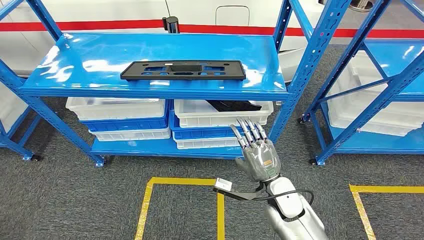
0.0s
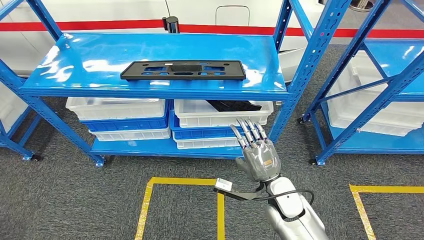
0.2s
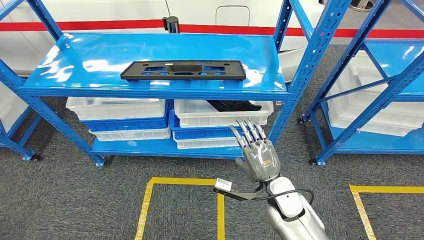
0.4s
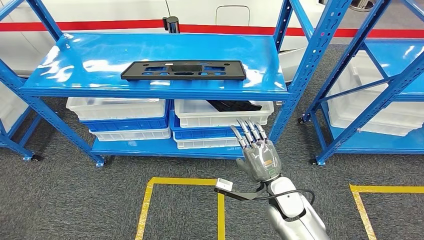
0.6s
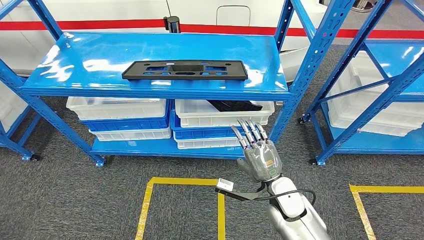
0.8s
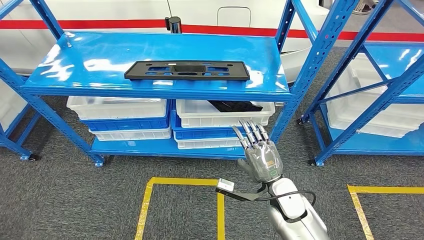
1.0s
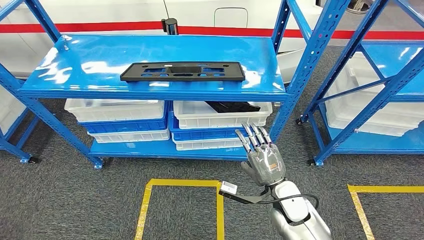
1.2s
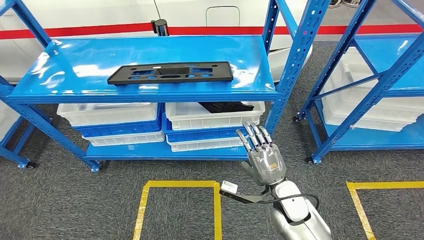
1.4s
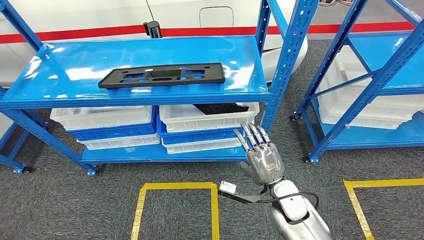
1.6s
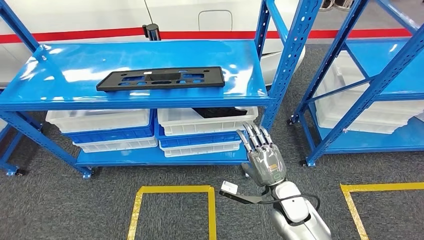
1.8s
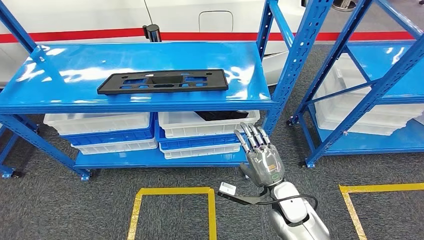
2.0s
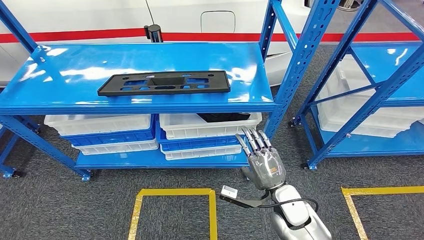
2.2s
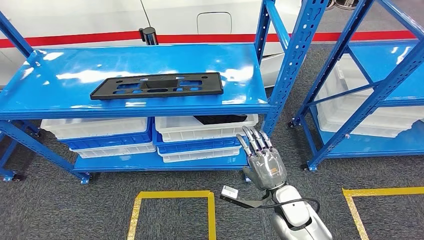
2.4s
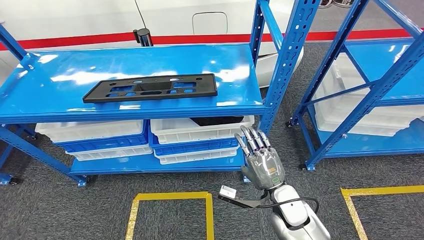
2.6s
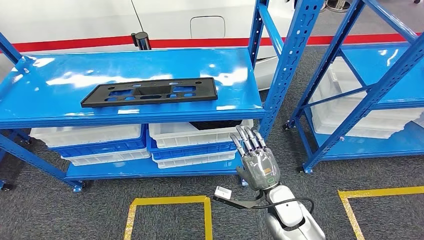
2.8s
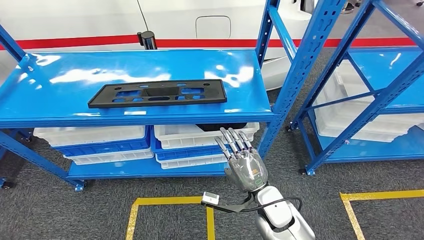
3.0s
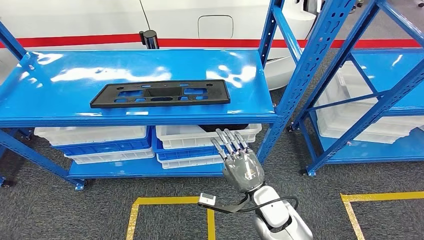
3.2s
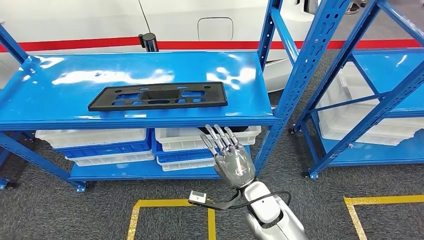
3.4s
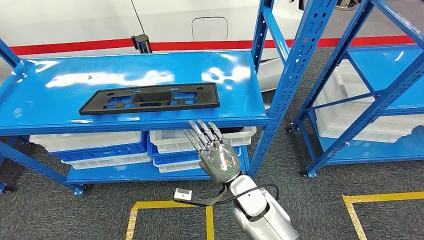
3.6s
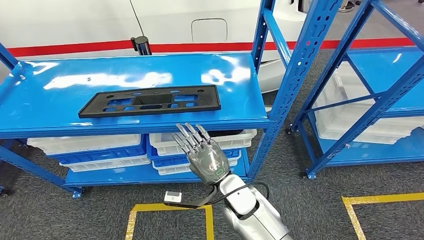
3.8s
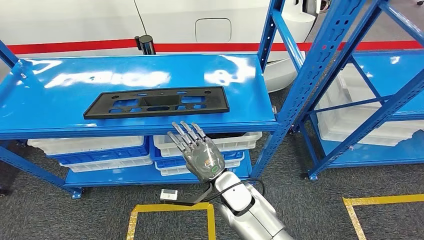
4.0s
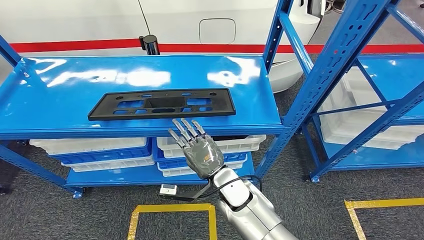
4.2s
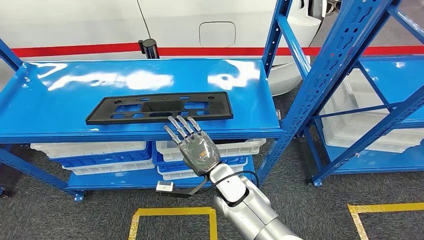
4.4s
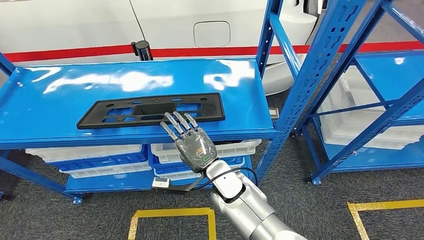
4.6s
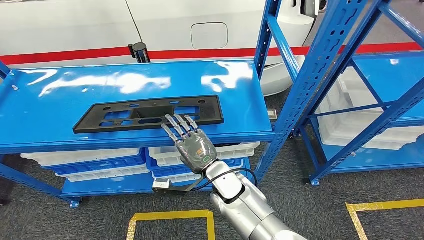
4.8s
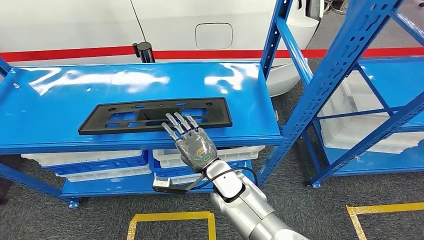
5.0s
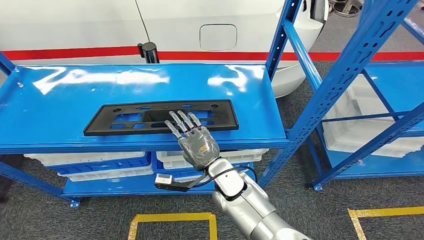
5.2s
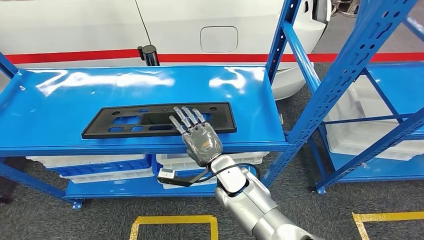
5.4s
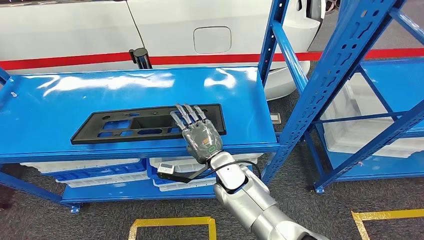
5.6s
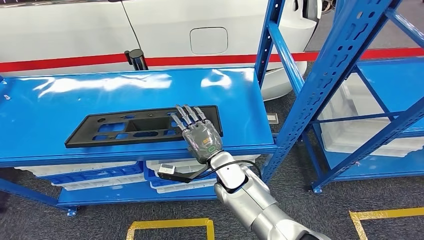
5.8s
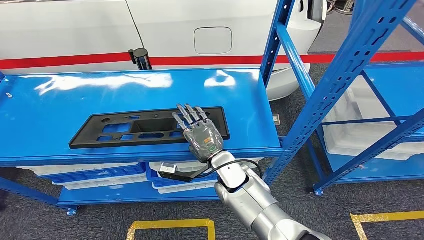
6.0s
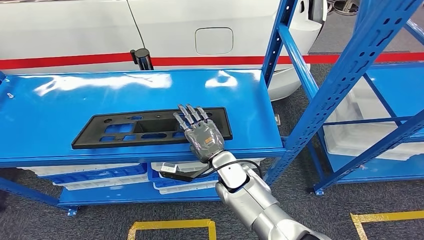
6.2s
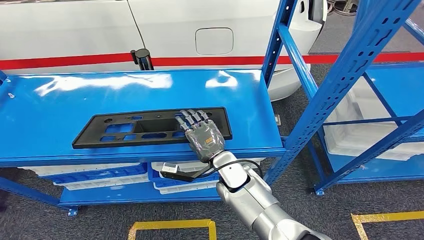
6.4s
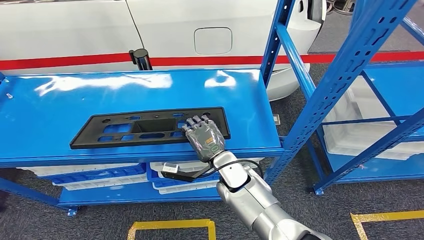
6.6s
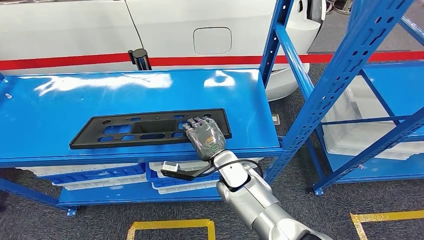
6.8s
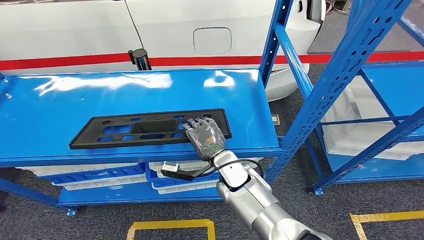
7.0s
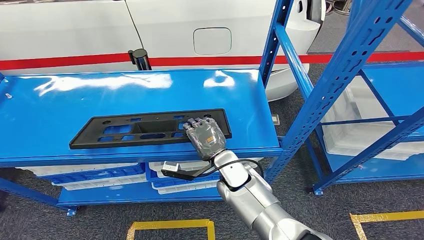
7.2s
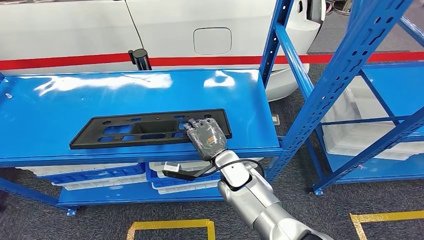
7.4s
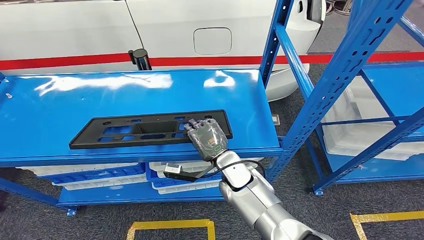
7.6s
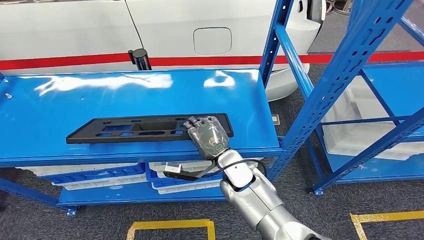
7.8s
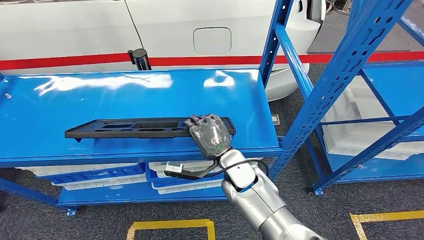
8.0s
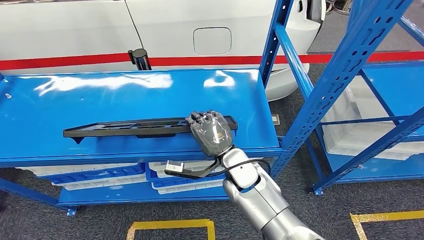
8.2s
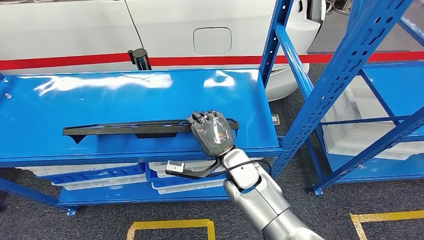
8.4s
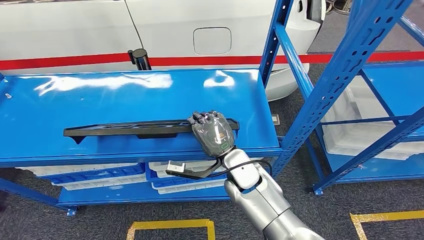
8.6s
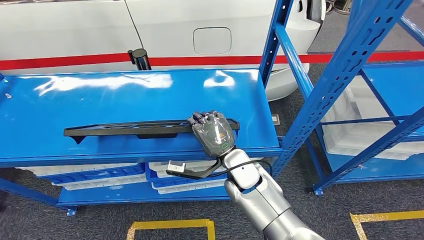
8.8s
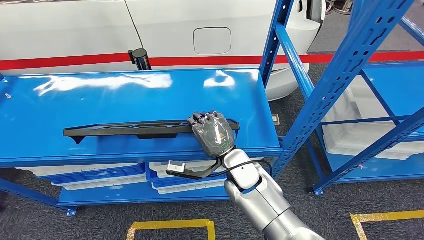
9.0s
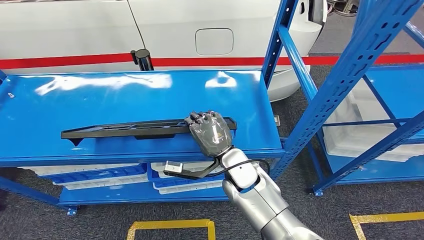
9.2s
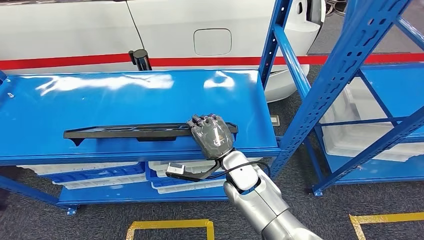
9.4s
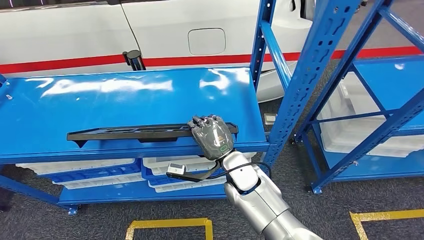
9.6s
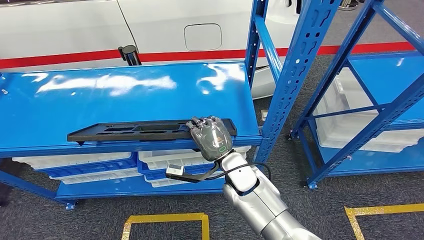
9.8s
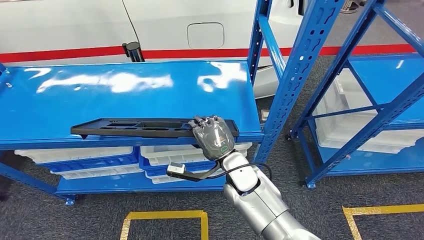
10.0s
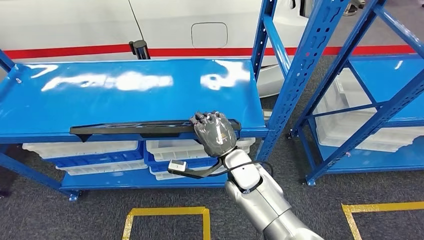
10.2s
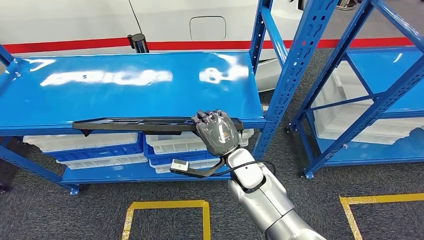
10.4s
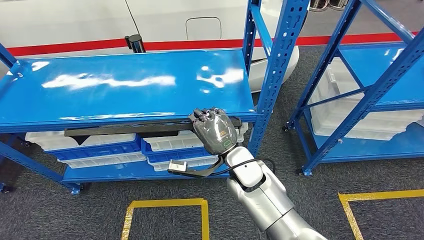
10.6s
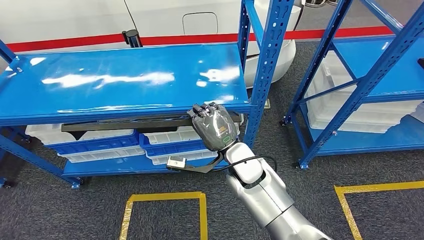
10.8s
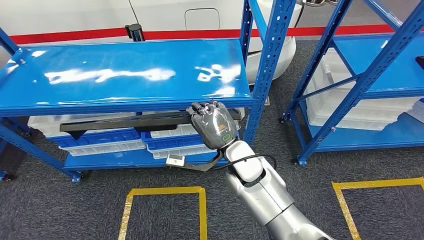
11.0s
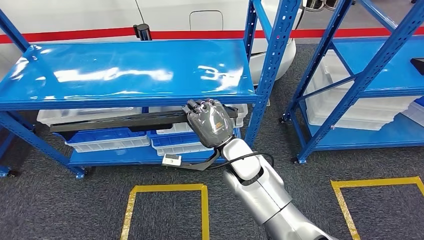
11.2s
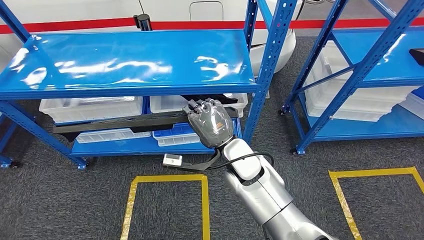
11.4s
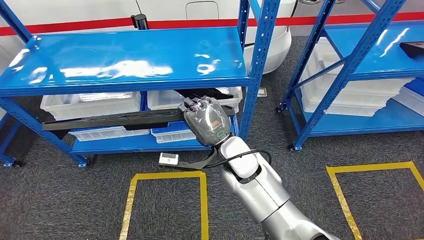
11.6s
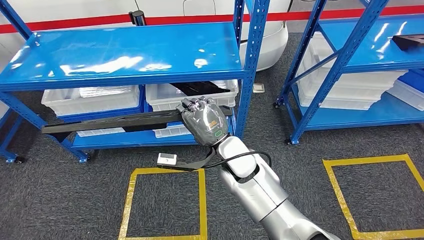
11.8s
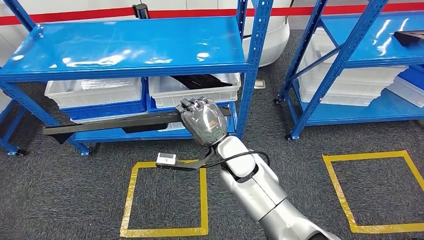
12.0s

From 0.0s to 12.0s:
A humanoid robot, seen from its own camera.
Step, from 0.0s to 11.2s: Pick up the large material from the shelf.
From 6.0s to 9.0s: The hands stay close to where they were, moving slightly.

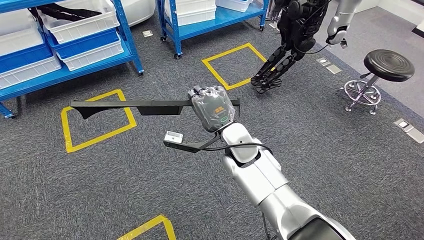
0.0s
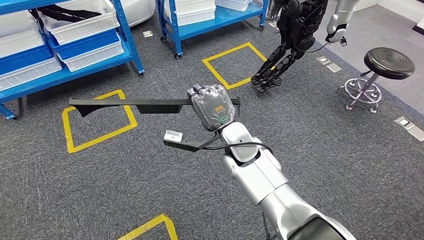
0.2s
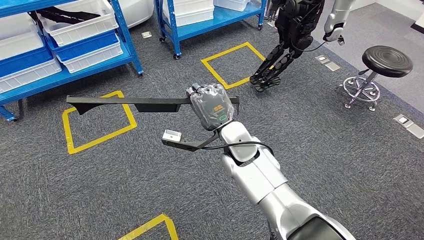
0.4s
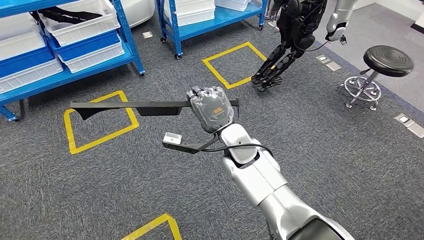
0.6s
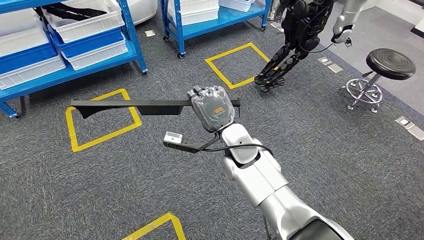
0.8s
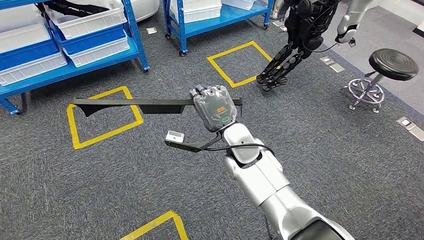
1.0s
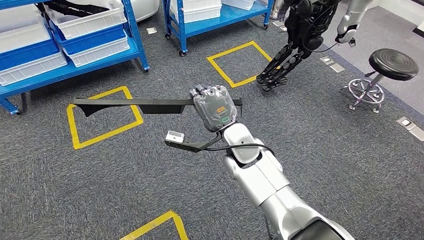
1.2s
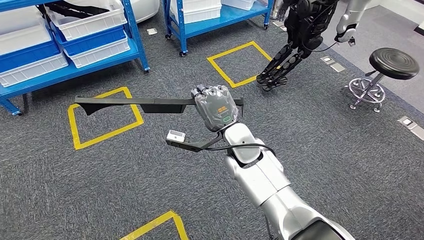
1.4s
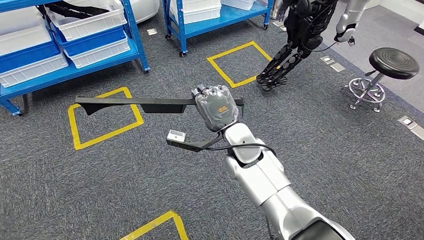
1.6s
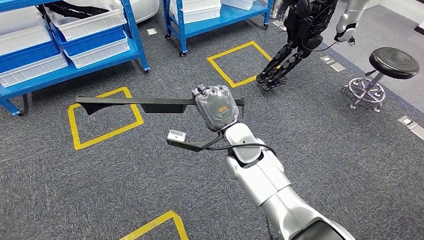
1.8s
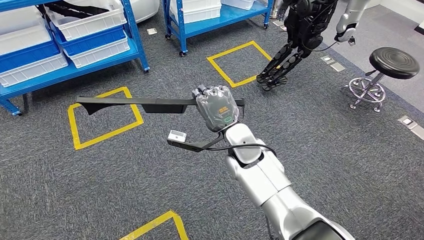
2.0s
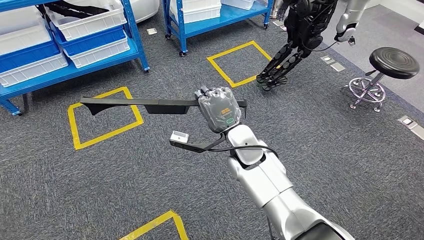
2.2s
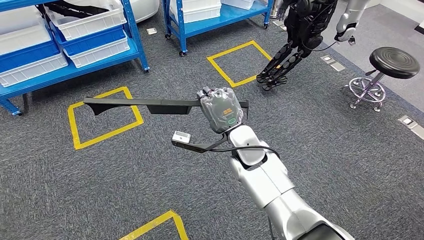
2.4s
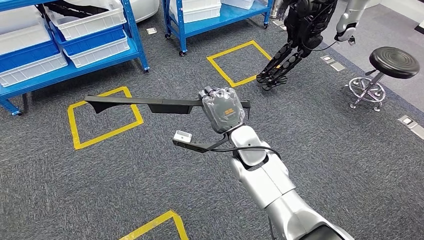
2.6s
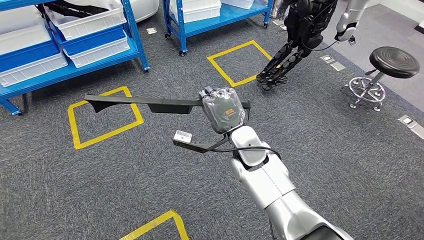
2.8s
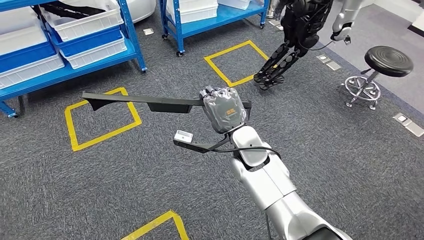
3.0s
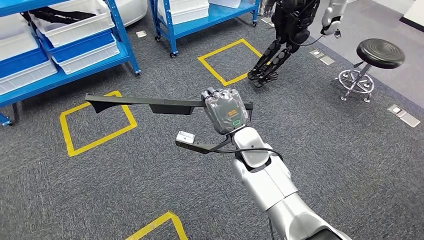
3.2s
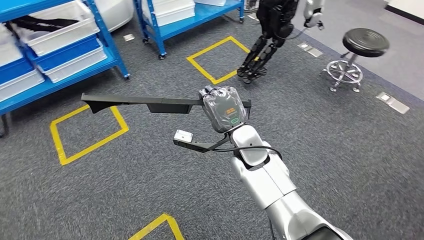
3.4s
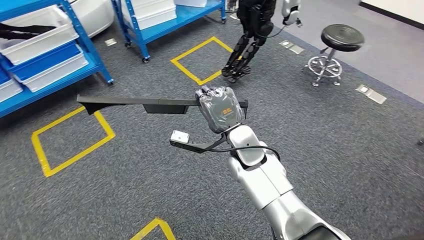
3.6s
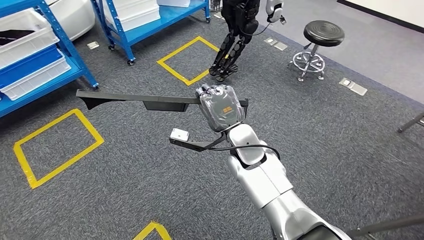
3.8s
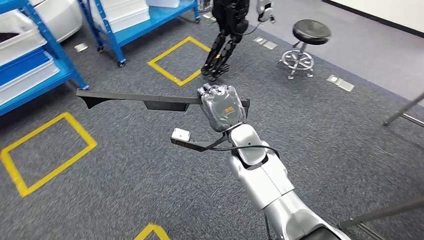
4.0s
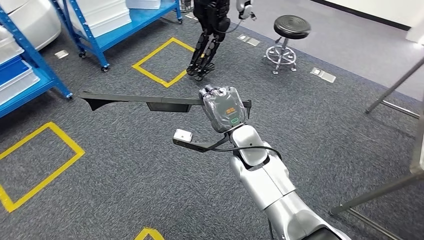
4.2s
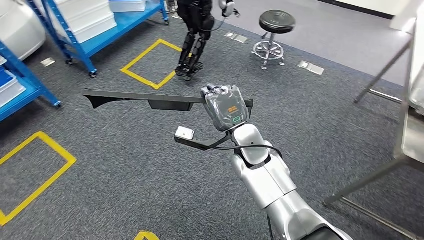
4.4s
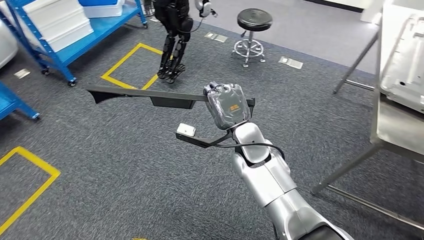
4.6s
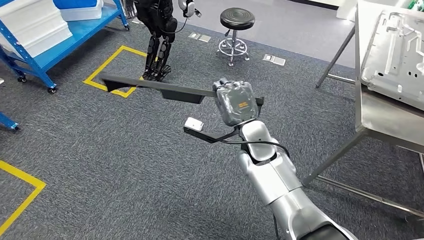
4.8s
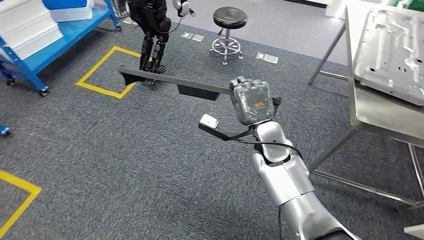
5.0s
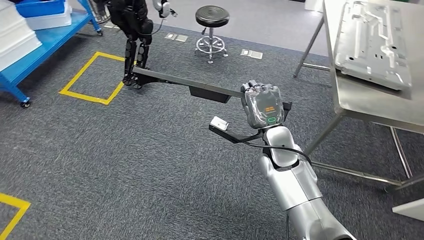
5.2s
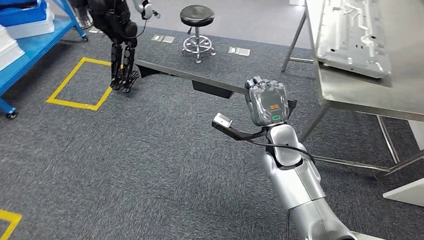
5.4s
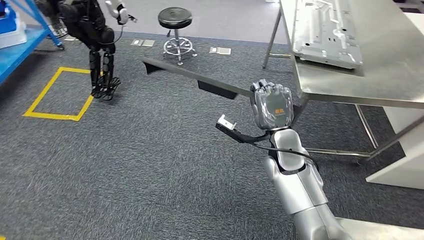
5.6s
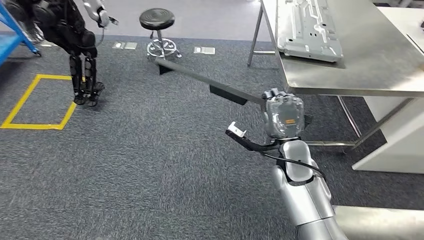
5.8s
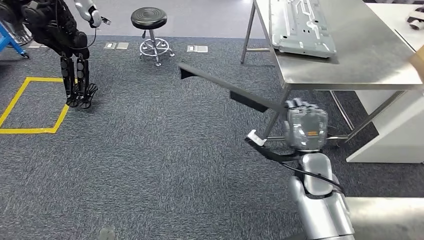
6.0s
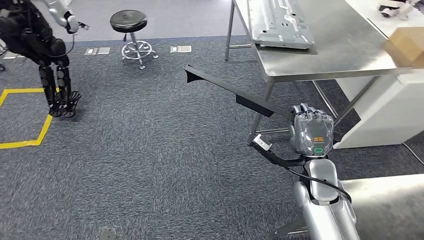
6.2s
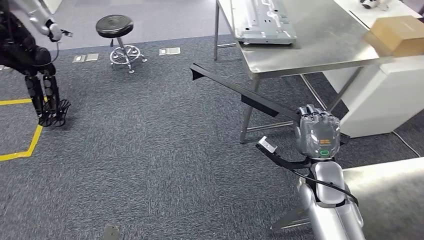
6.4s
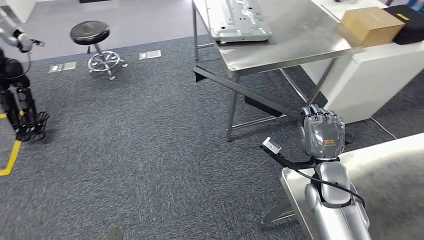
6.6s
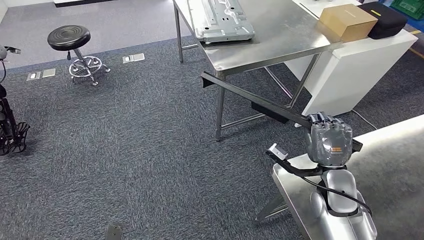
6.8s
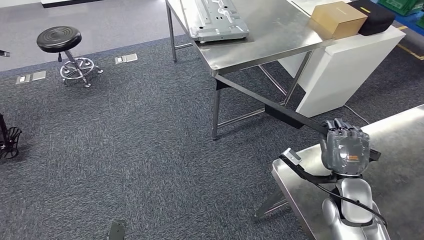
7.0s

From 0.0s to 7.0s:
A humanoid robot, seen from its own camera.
From 0.0s to 1.4s: Both hands stay about where they are.
From 1.4s to 2.8s: There are only small adjustments of the hands.
